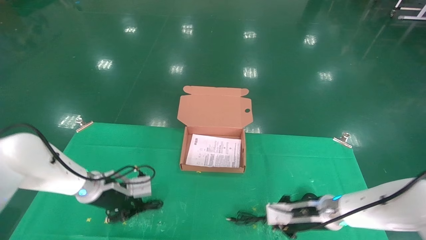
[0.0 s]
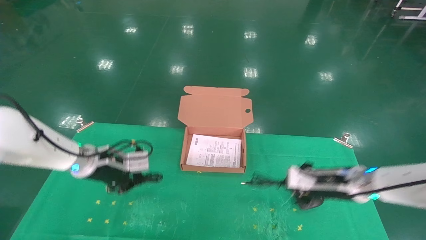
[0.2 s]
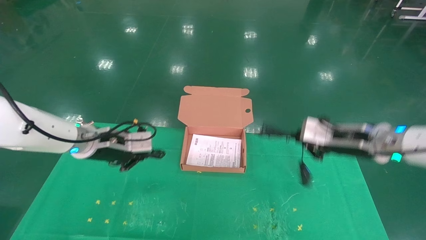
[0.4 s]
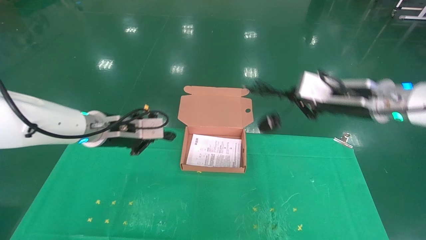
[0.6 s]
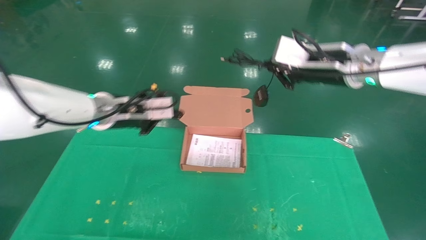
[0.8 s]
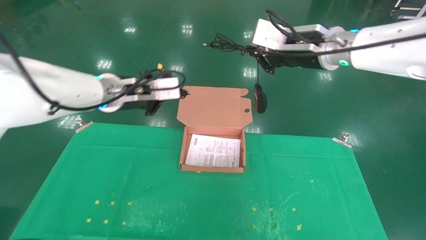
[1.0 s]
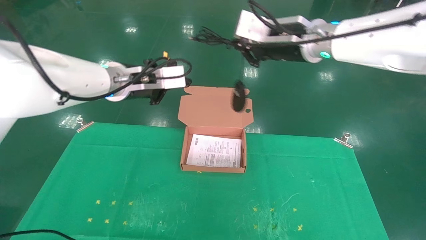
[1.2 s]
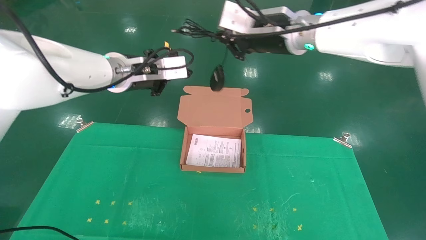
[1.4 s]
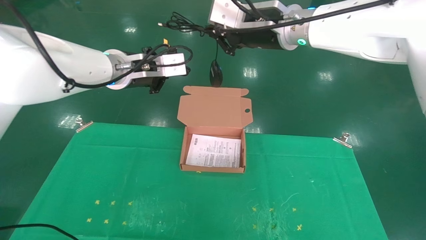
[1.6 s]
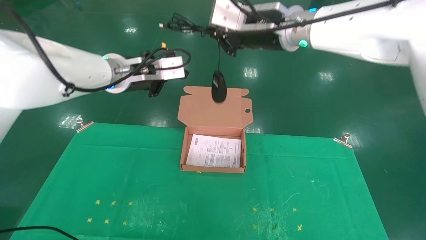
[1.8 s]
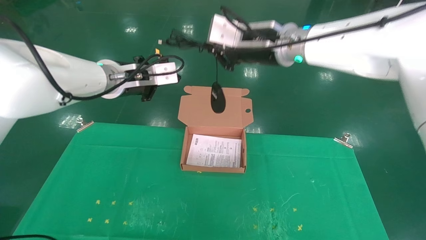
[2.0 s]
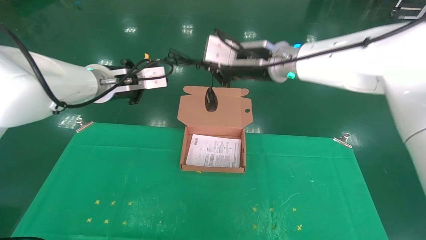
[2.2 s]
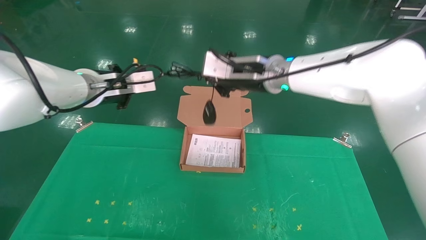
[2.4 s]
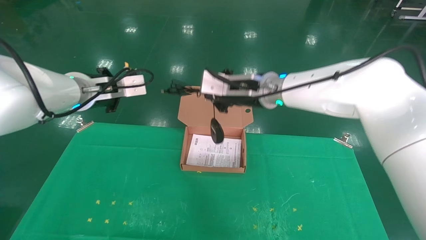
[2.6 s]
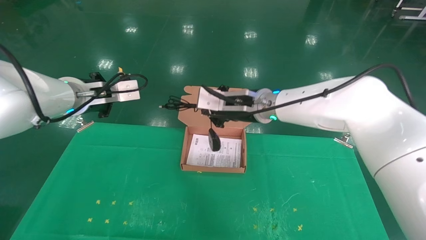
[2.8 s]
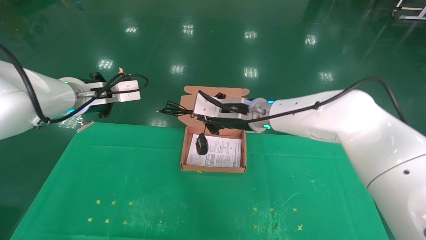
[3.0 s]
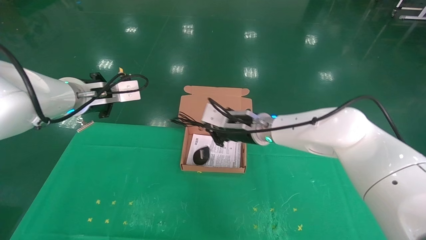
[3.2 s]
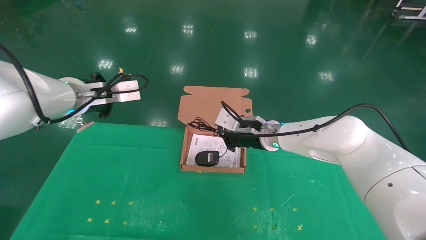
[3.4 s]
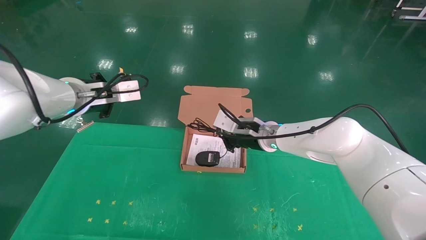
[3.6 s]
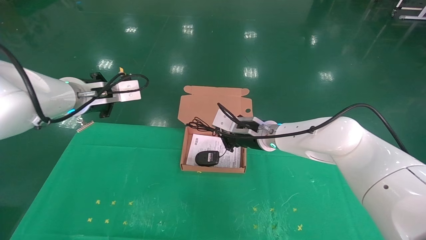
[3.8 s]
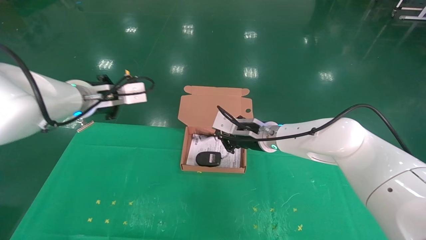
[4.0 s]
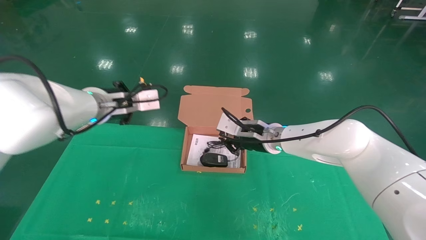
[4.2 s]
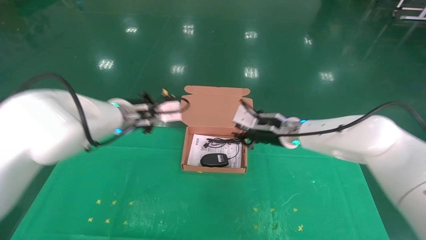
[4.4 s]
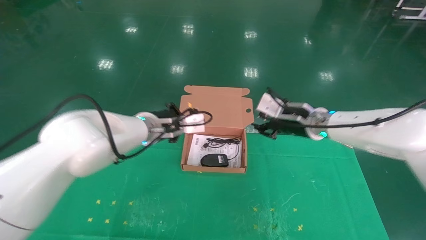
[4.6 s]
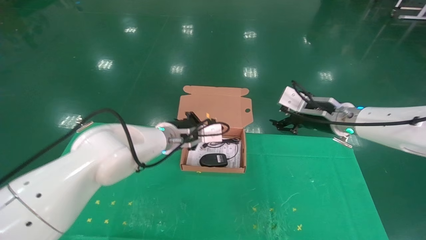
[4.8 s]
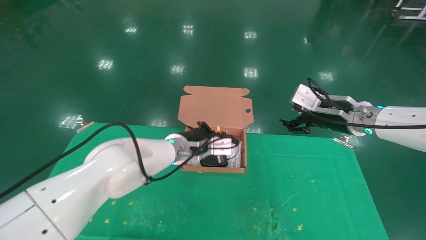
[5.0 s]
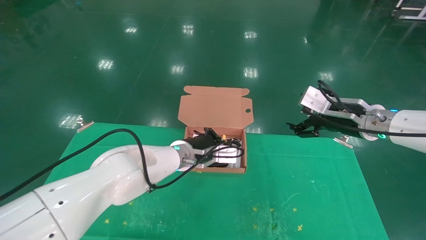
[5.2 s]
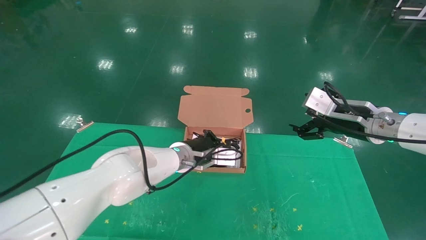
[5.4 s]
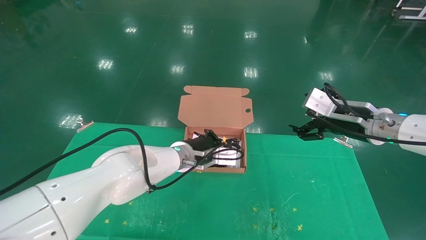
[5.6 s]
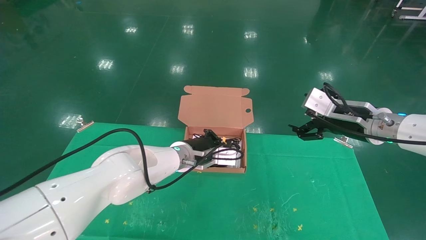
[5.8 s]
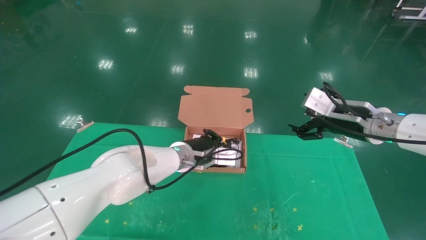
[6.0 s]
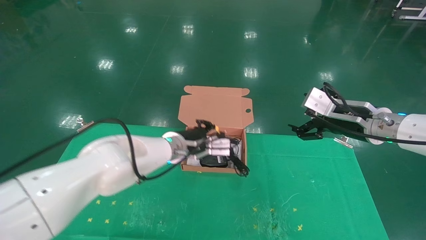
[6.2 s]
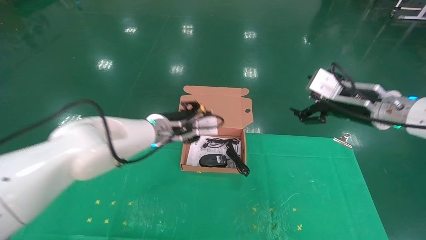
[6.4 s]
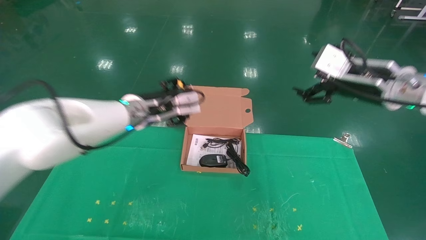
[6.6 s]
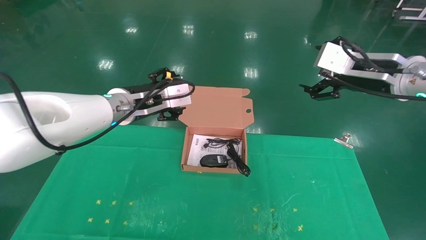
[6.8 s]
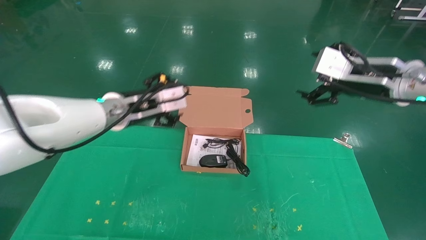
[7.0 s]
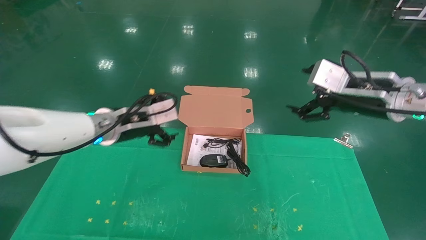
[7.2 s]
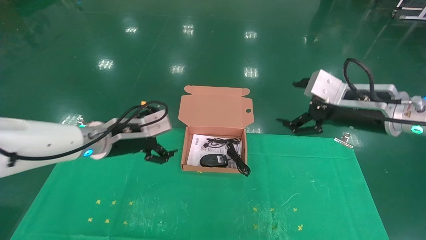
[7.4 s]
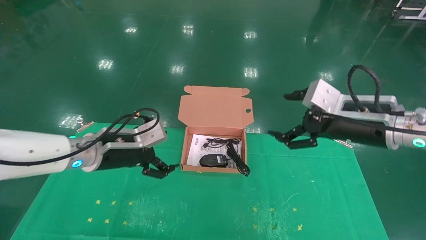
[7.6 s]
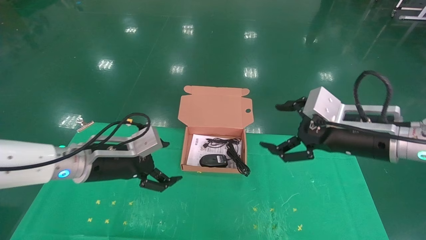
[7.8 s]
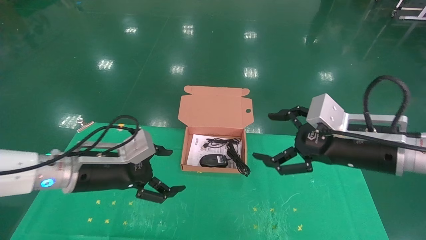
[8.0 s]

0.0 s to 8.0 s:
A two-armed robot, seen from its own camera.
Task of the whole recording: grasp data cable left put into box grasp mouse right put into box.
Step, 1.0 to 6.6 s: Place the mouse and power cord into the box.
0.0 to 1.6 s: The left gripper travels upward and to the right by some 25 cm; the right gripper heads upward and to the left, covering approximately 35 cm.
1.6 to 3.2 s: The left gripper moves to the left, approximately 10 cm; the right gripper is displaced downward by roughly 20 cm.
3.2 to 4.8 s: The right gripper is displaced to the right by some 15 cm, and opens, while the left gripper shifts some 20 cm to the right and downward.
4.8 to 6.4 s: The right gripper shifts roughly 5 cm backward, and opens up; the left gripper opens.
6.4 to 8.0 s: The left gripper travels backward and to the left by roughly 15 cm, and opens its fingers. Meanwhile the right gripper heads backward, covering approximately 10 cm.
